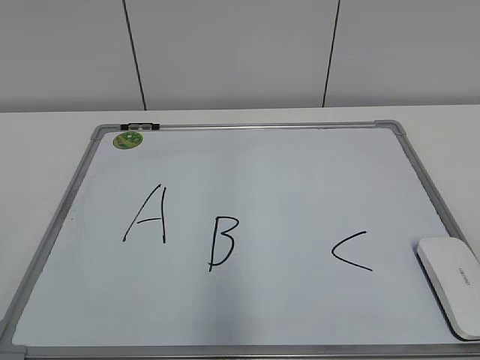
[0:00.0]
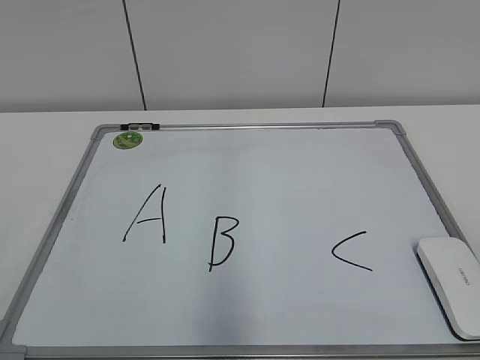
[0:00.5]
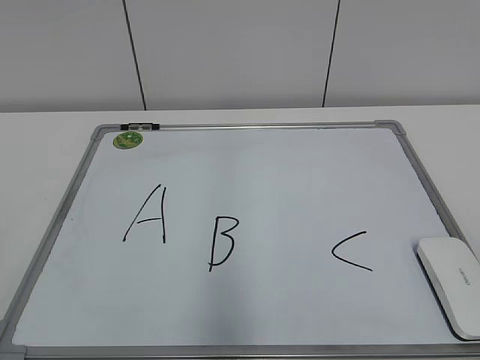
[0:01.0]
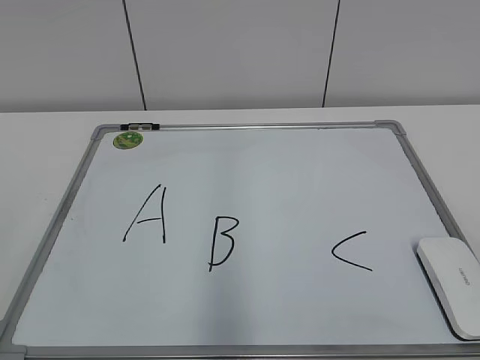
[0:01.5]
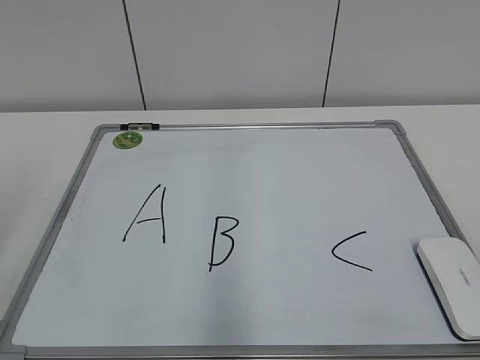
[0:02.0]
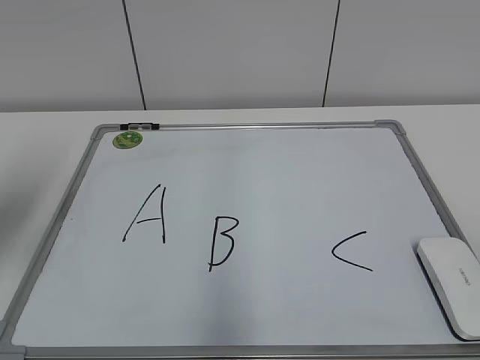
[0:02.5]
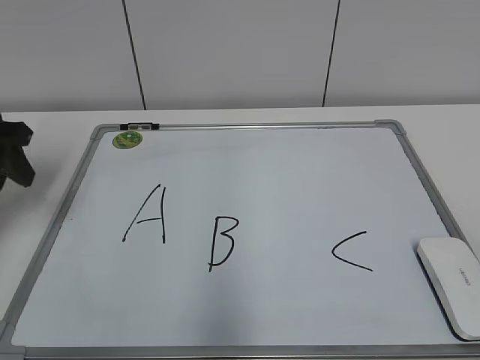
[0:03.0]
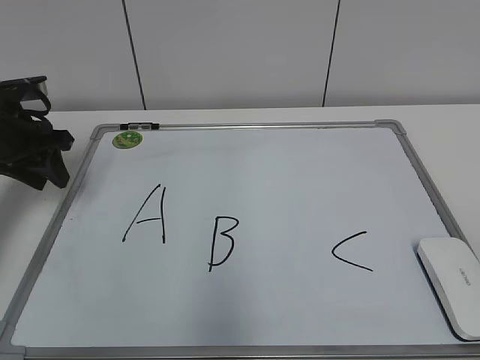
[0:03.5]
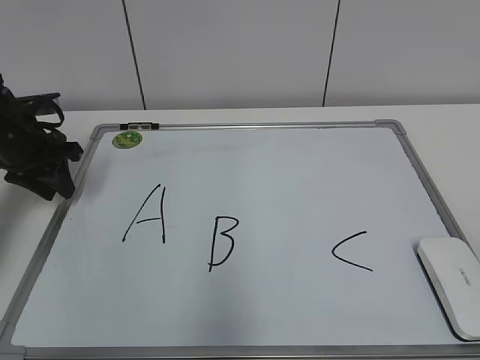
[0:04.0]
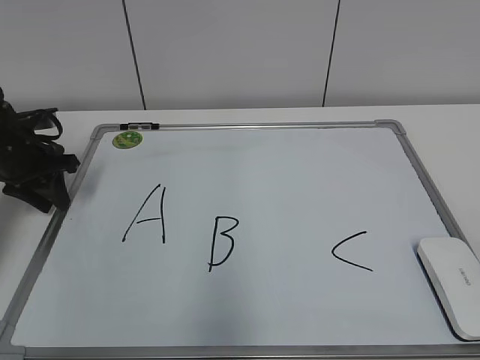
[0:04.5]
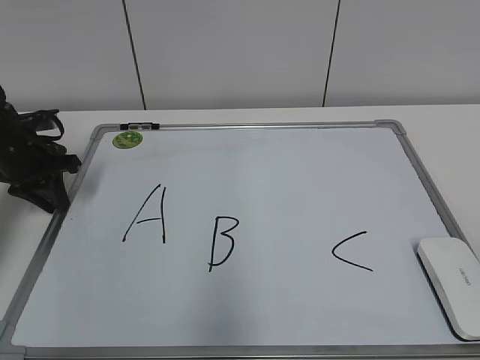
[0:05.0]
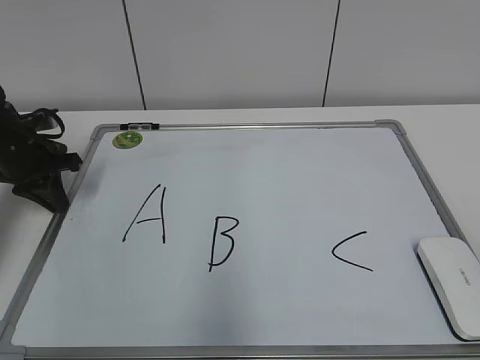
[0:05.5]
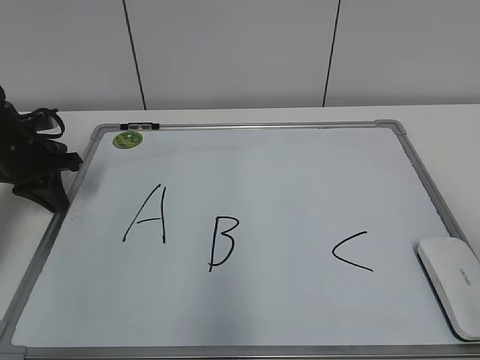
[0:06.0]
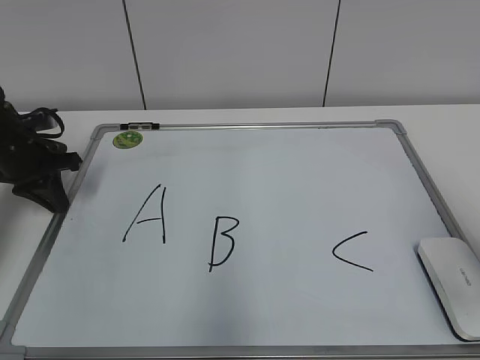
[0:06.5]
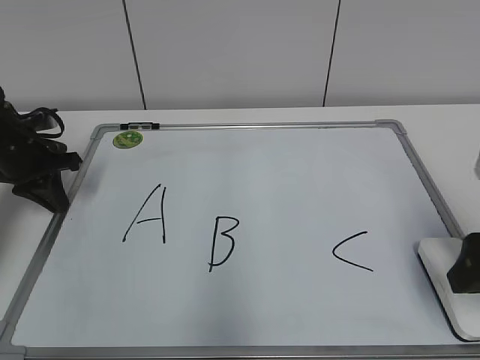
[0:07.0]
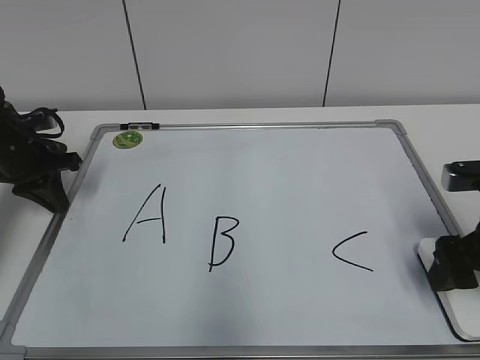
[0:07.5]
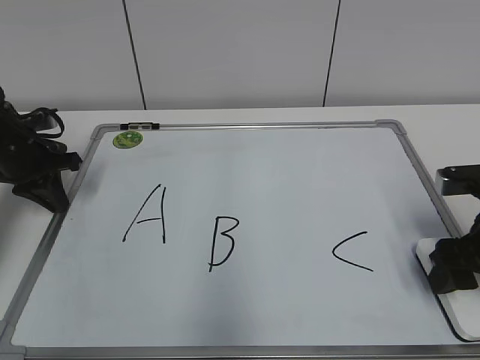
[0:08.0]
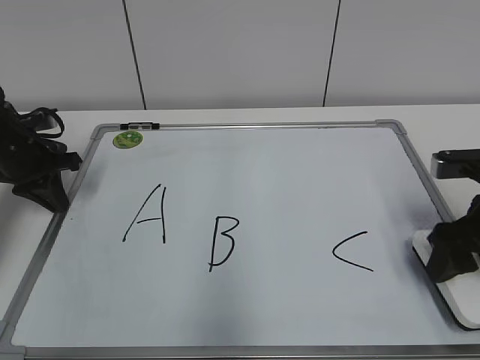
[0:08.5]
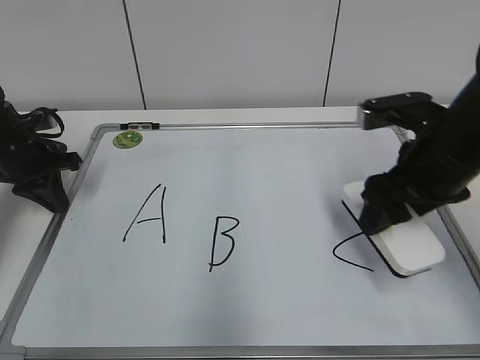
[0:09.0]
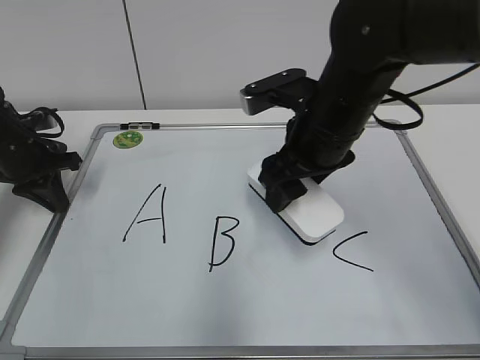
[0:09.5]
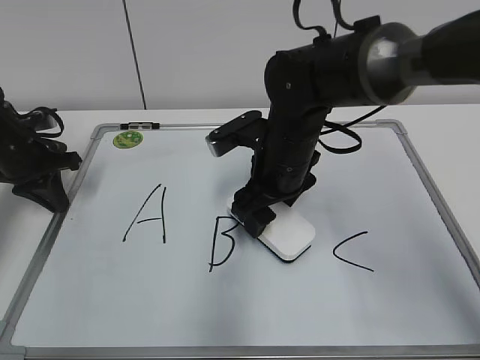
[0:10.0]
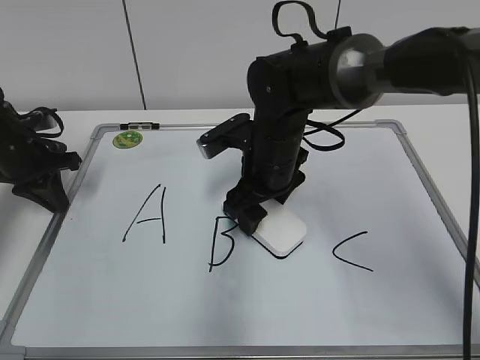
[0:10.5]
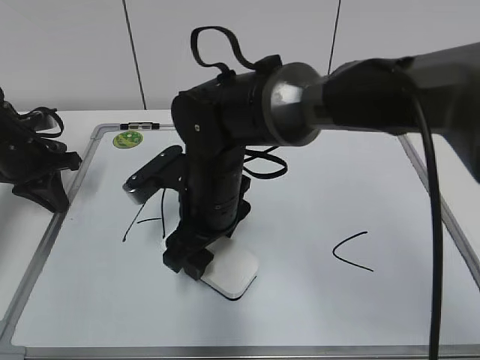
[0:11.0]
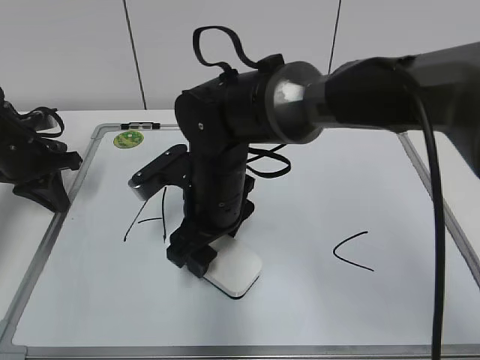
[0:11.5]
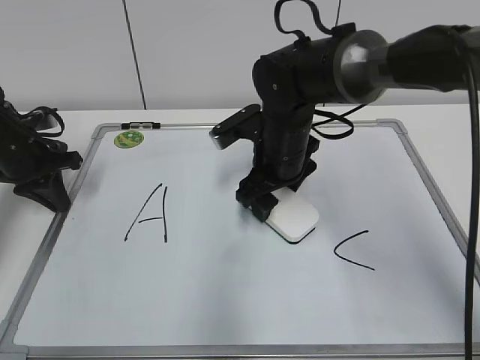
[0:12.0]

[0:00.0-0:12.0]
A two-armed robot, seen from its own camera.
Task of the whole recording: pick up the eraser on the blackboard and erase the letter "B".
Step, 0:00.0 to 0:05.5: Hold the drawing board steady with your left hand.
Step, 0:06.0 to 0:08.0: Grab the eraser with your right hand.
0:02.0 to 0:04.0: The left gripper heads forward and downward, covering approximately 35 cm, and closes its fingers.
0:04.0 to 0:06.0: The left gripper closes.
0:06.0 to 0:08.0: The right gripper is displaced forward and downward by roughly 20 cm, and closes.
0:08.0 to 0:10.0: The right gripper goes approximately 25 cm to the left and forward.
0:10.0 to 0:12.0: The right gripper goes to the left and returns, some 10 cm each way.

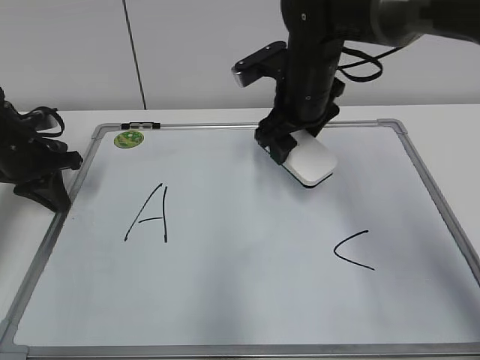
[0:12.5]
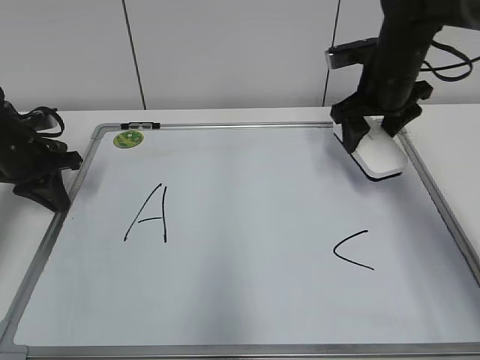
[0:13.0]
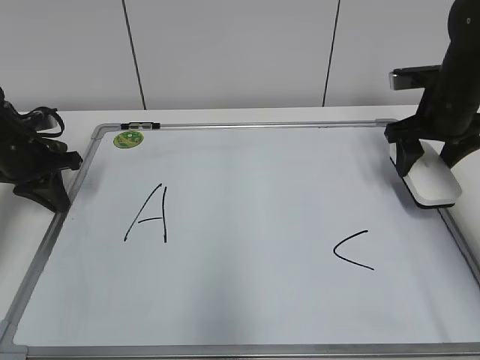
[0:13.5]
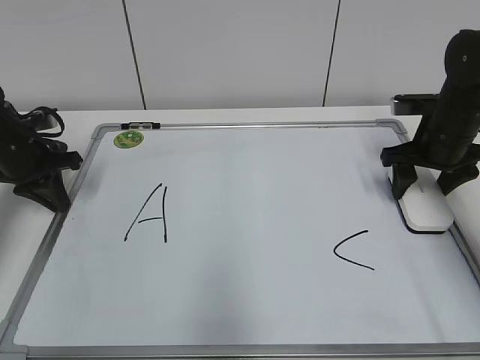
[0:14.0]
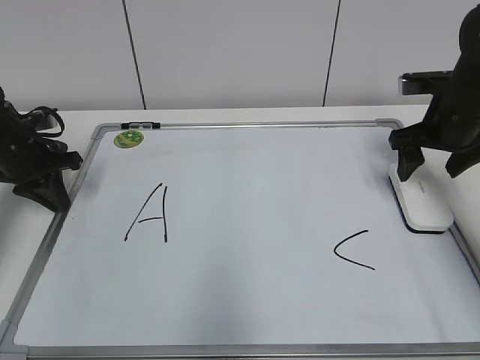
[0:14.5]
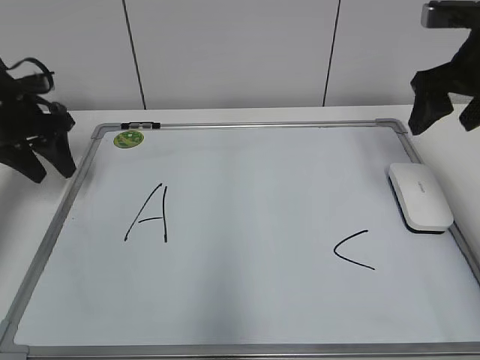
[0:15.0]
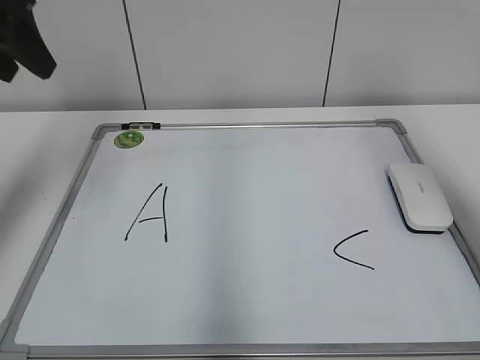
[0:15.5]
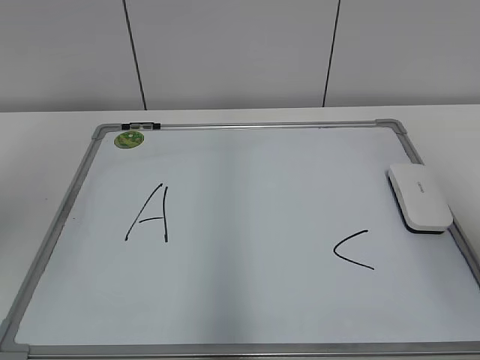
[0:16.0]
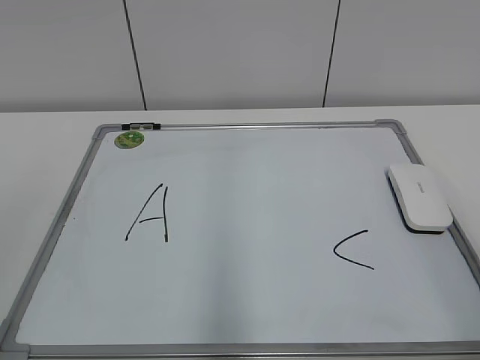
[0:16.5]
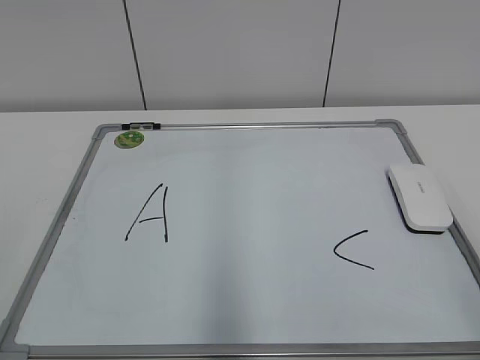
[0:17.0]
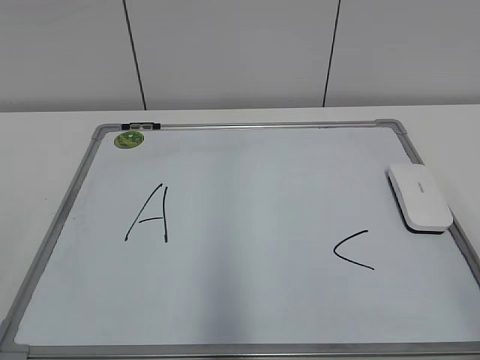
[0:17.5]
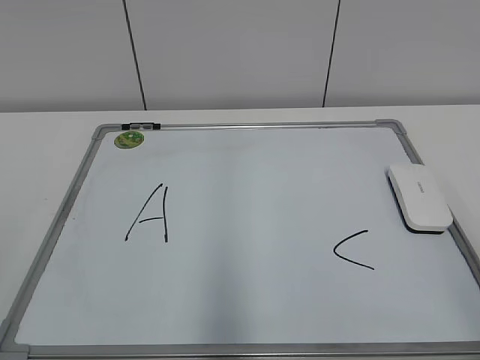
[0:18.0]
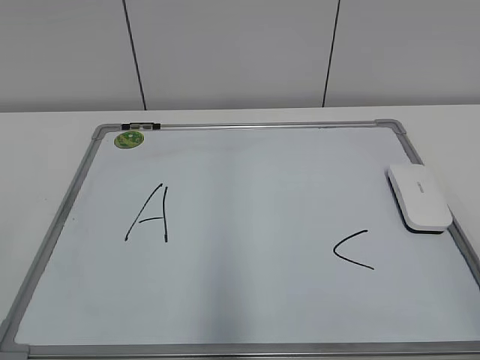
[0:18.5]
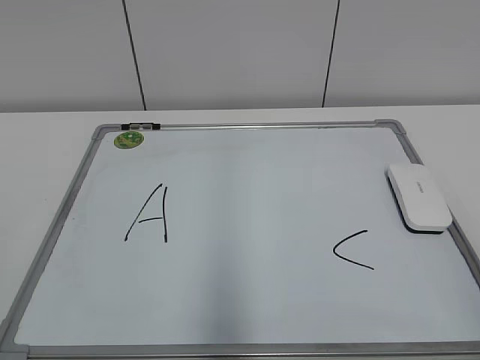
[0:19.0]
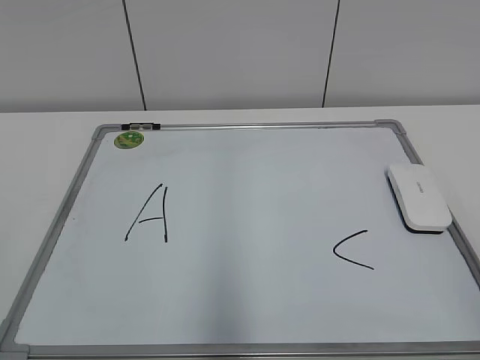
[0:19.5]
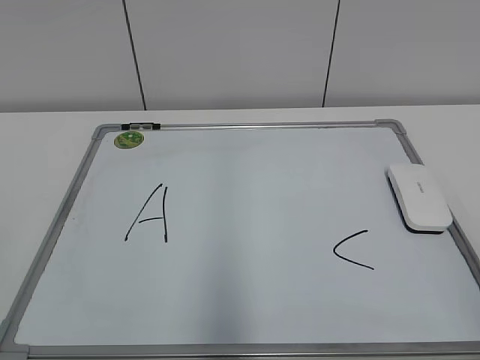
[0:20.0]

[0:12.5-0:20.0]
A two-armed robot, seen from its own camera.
Task of the whole recording: pick up the eraser on the blackboard and erase the letter "B".
Step, 0:12.5 to 0:14.0: Put down the eraser with your right hand.
0:12.5 to 0:14.5: The right gripper shifts approximately 20 cm to the right, and opens up.
0:14.5 to 0:16.5: The left gripper is displaced backward and upward by about 40 cm, and opens its fingers. The right gripper is displaced backward by approximately 35 cm.
